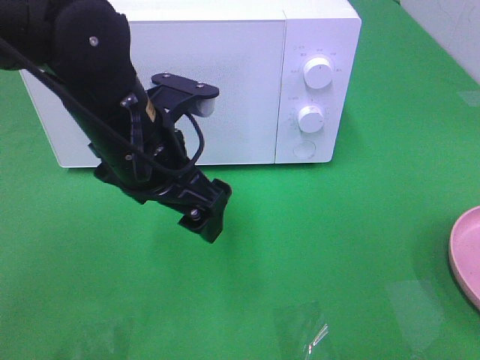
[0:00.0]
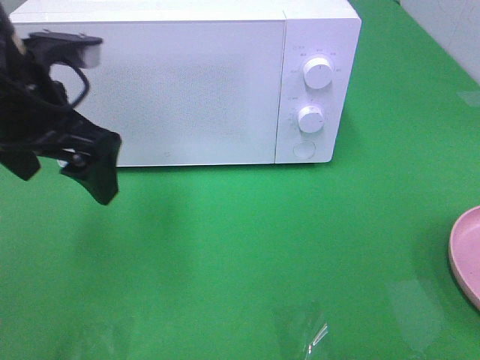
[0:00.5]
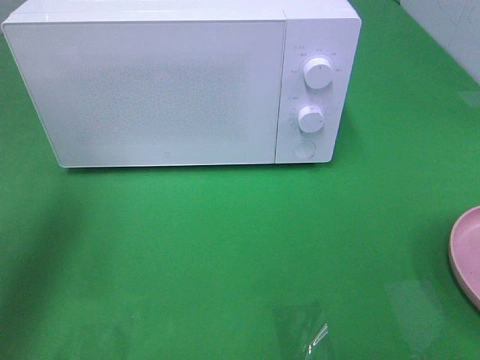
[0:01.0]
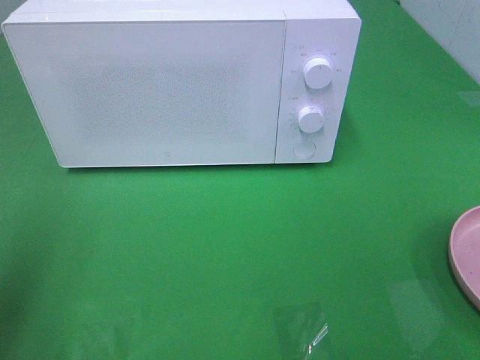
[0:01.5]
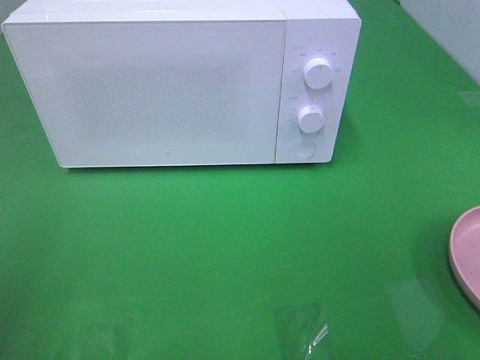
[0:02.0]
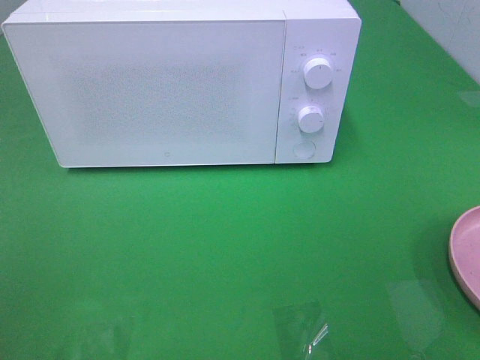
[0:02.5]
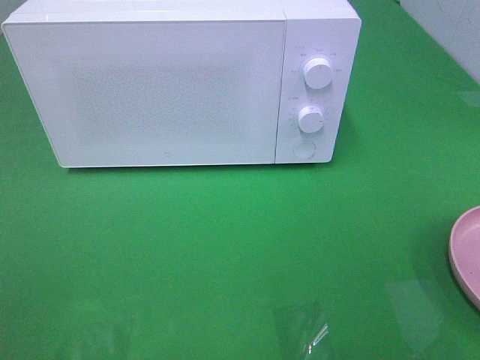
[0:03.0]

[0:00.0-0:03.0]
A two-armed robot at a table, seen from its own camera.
Task of the whole recording: Heat the burger.
0:00.0 to 0:01.5: The left gripper goes approximately 25 cm to the left and backward.
0:01.5 to 0:03.0: The left gripper heads backward, covering some 15 cm.

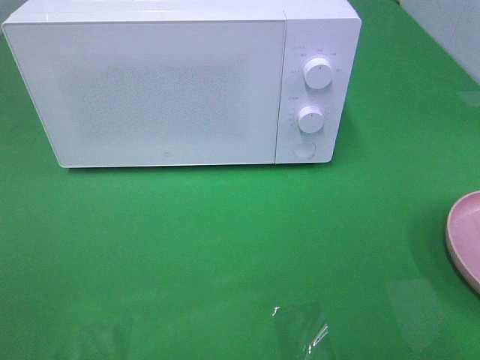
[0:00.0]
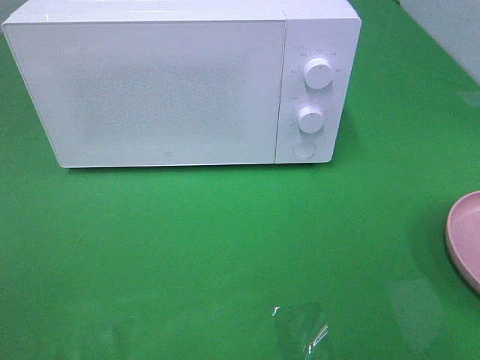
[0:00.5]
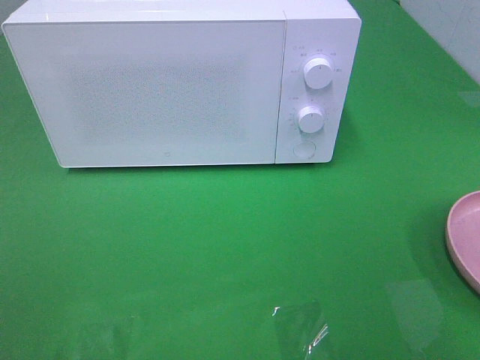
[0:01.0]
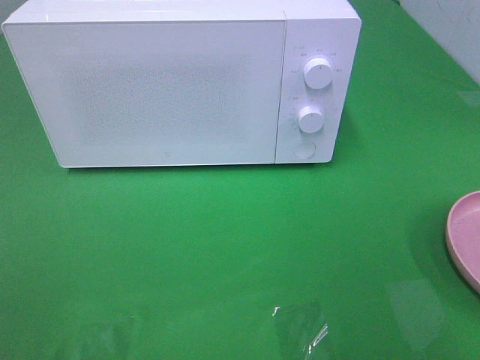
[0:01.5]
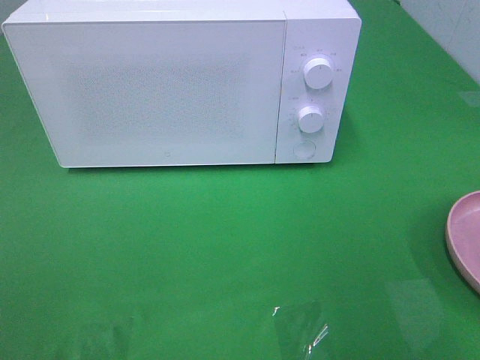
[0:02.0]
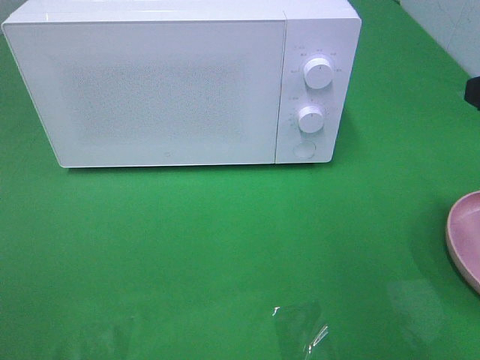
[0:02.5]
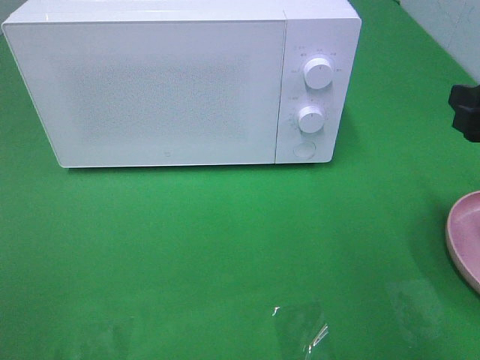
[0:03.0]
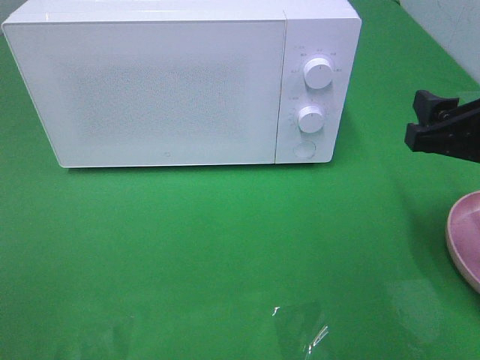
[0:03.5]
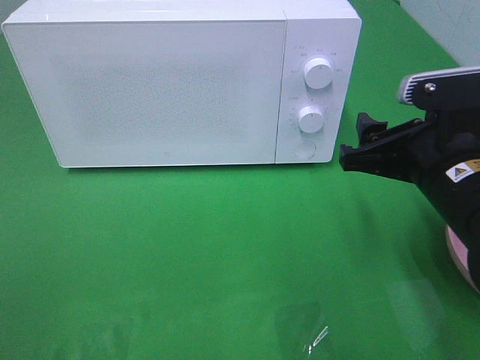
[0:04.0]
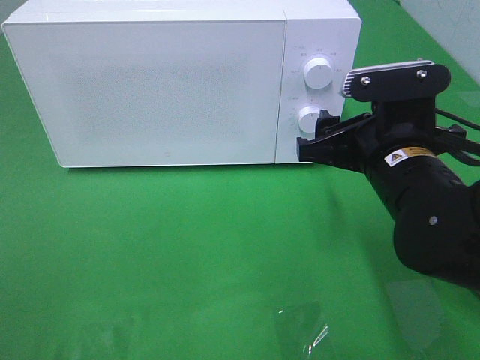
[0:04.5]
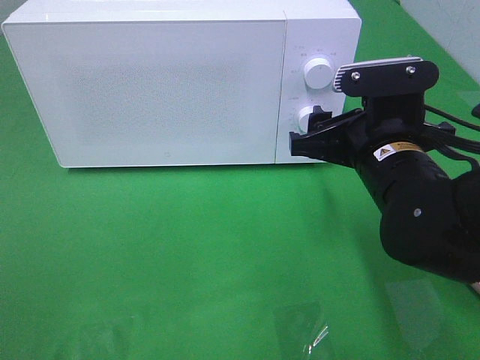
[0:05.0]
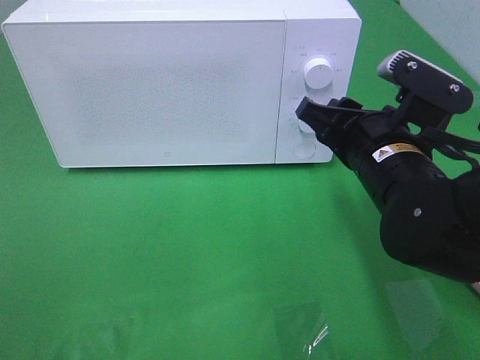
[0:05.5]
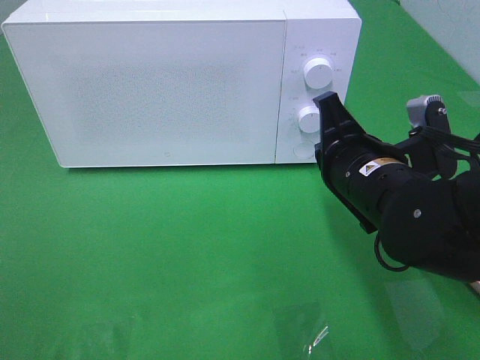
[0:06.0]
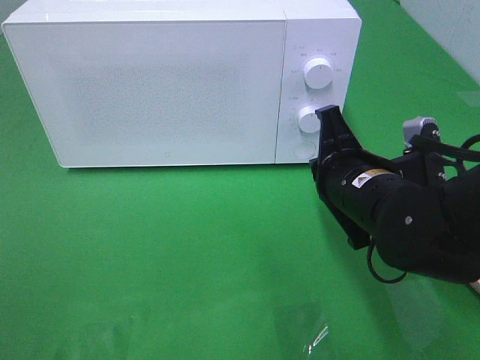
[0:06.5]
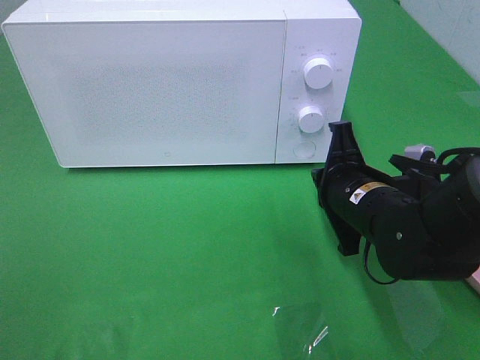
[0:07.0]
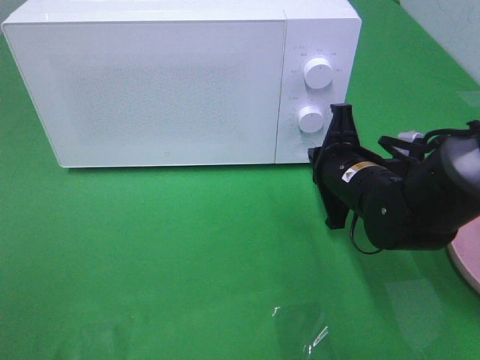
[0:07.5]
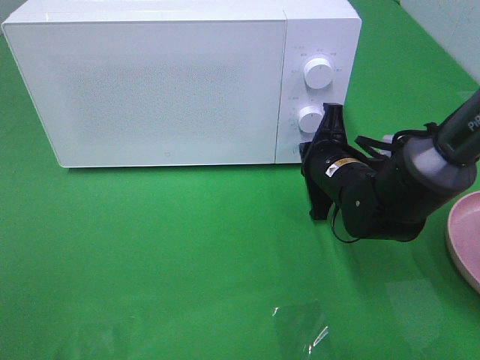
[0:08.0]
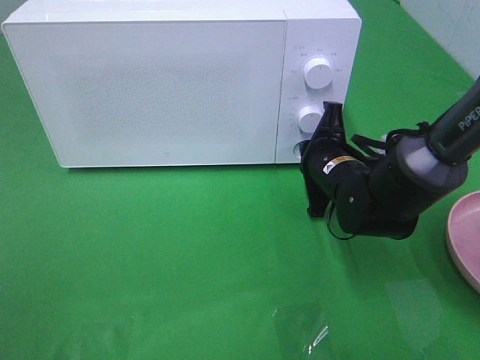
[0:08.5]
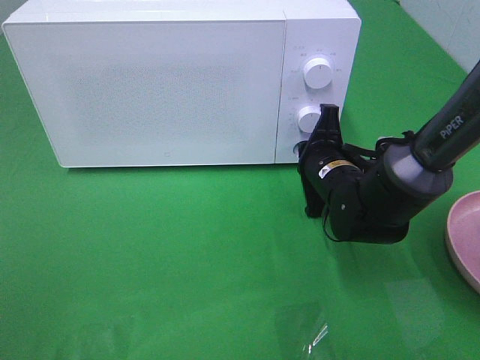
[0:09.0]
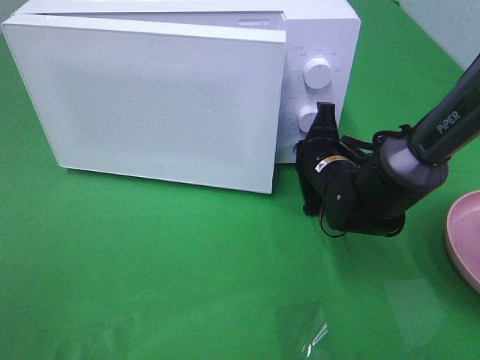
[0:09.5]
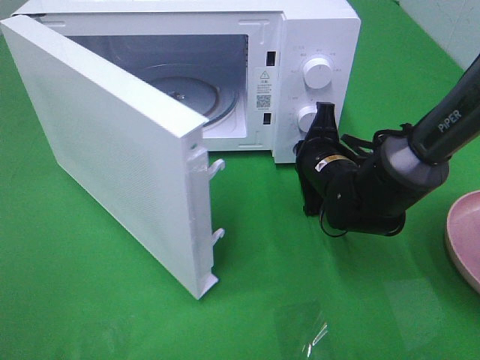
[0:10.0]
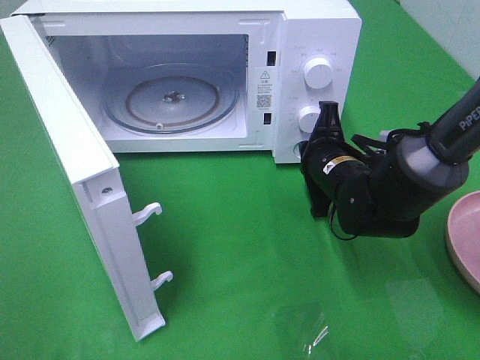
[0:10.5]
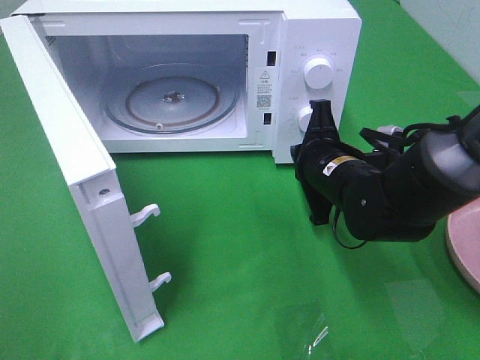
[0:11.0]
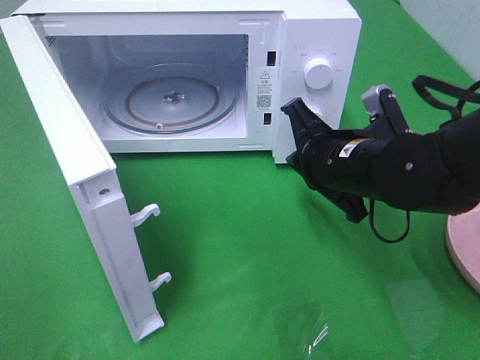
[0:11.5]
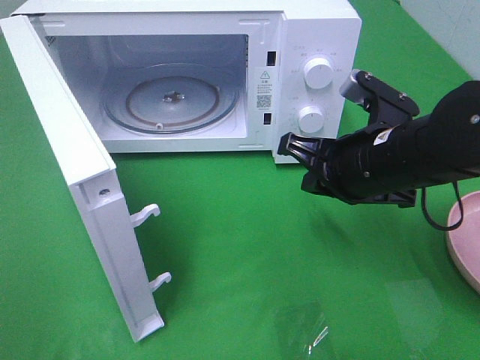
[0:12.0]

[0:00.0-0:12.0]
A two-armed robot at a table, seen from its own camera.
Task of the whole recording: Heat the burger.
Step, 0:00.0 to 0:10.5: Right hand: press the switch.
0:02.0 to 0:04.0: The right gripper is displaced downward, to the left and forward by about 20 cm.
0:04.0 to 0:06.0: The right gripper goes roughly 5 cm to the left, and closes its fingers.
0:06.0 to 0:08.0: The right gripper heads forward and downward, covering roughly 10 cm.
0:10.0 to 0:12.0: The right gripper is displaced upward and backward by some 15 cm.

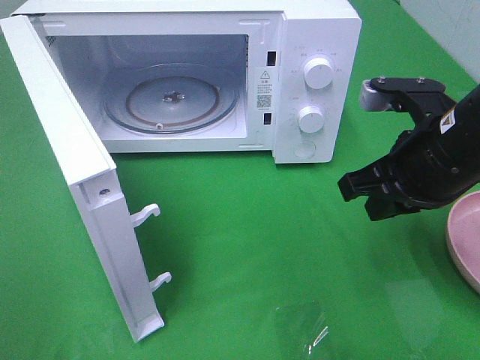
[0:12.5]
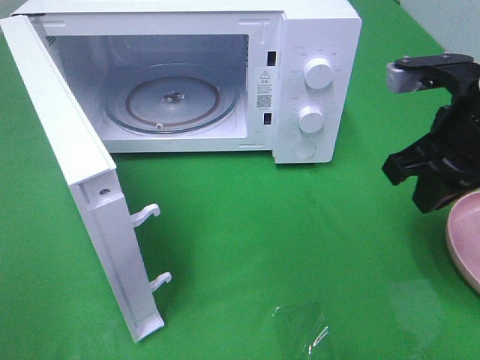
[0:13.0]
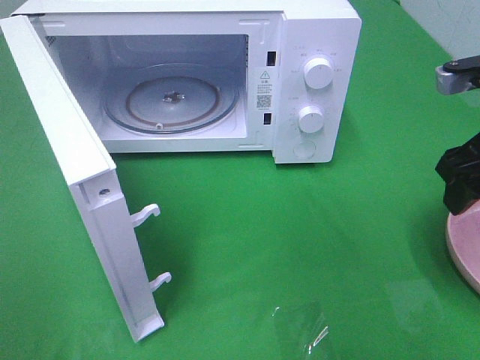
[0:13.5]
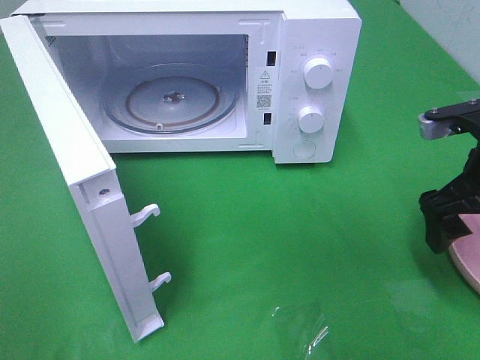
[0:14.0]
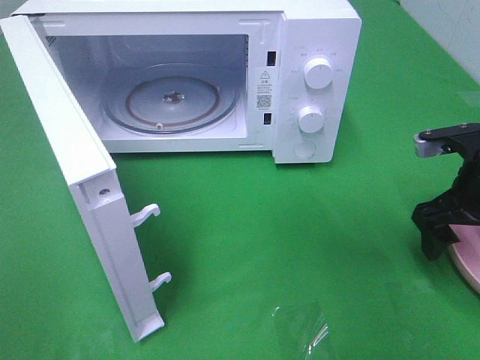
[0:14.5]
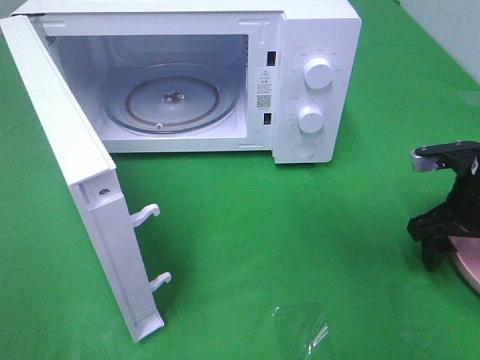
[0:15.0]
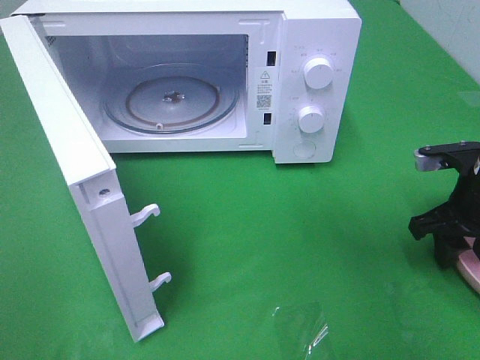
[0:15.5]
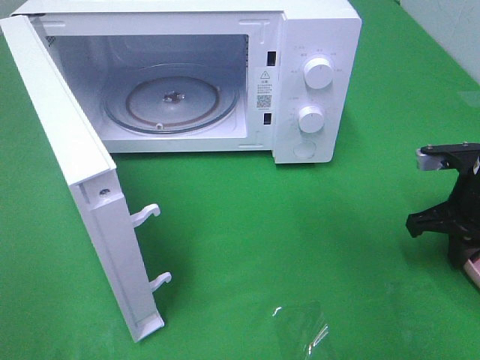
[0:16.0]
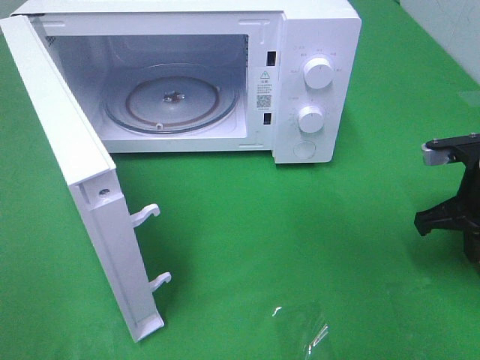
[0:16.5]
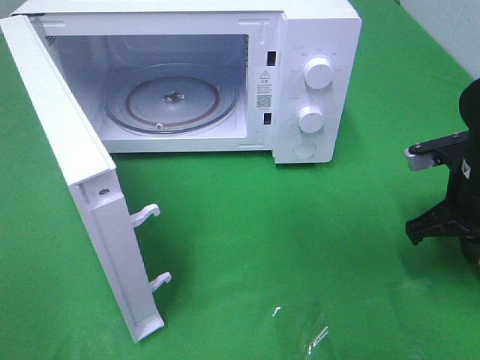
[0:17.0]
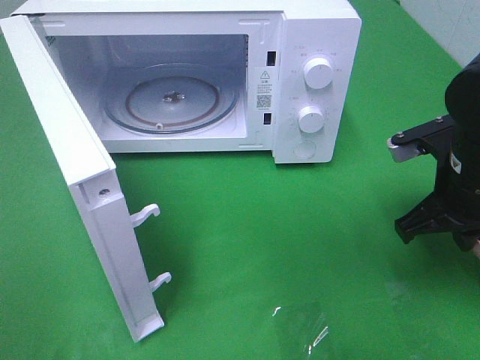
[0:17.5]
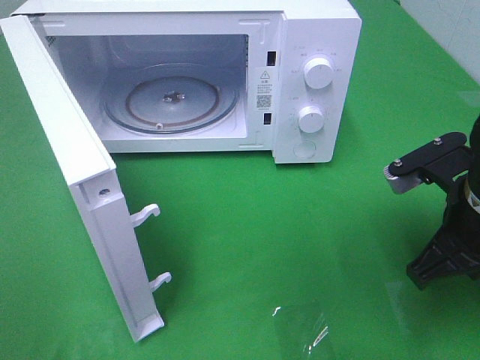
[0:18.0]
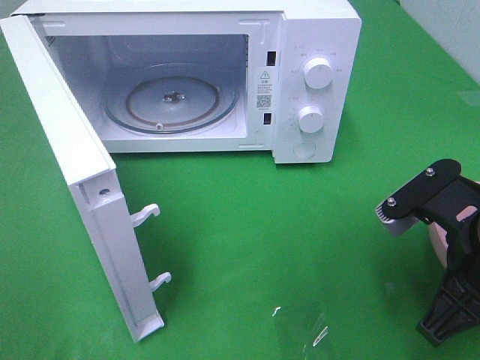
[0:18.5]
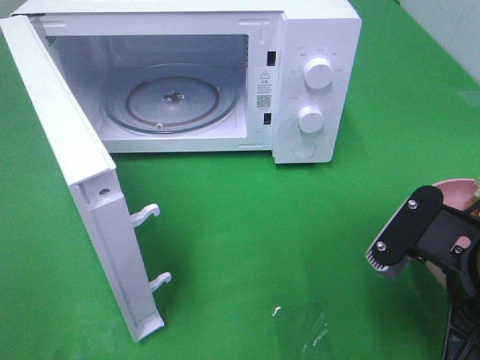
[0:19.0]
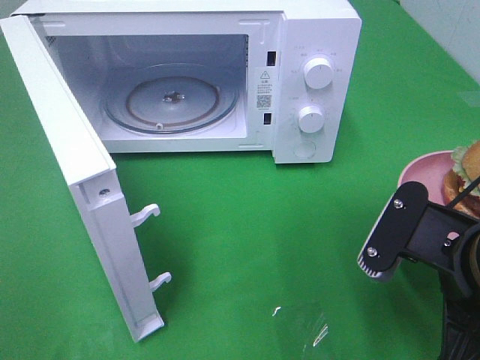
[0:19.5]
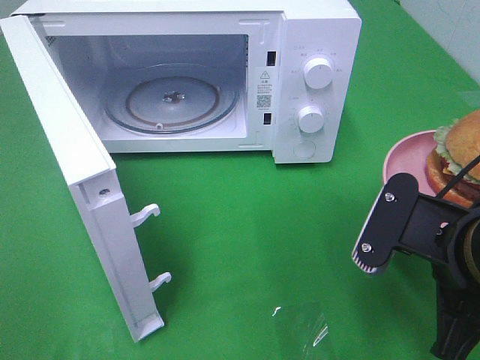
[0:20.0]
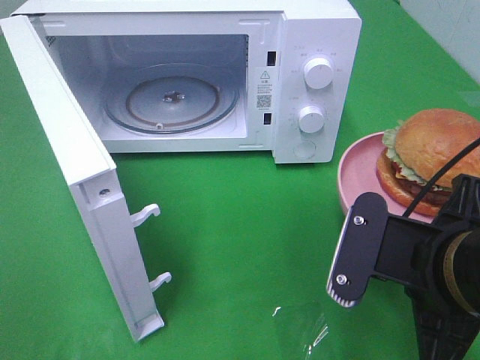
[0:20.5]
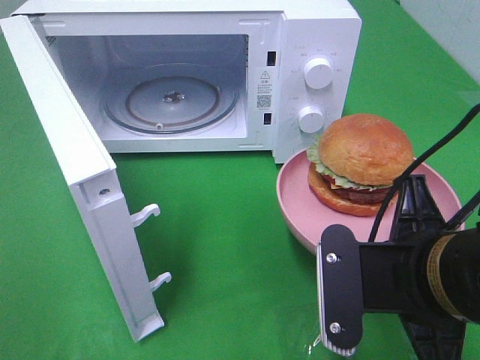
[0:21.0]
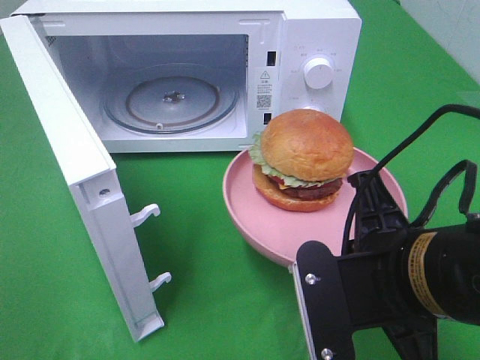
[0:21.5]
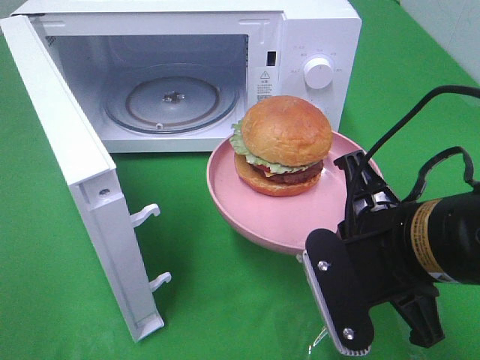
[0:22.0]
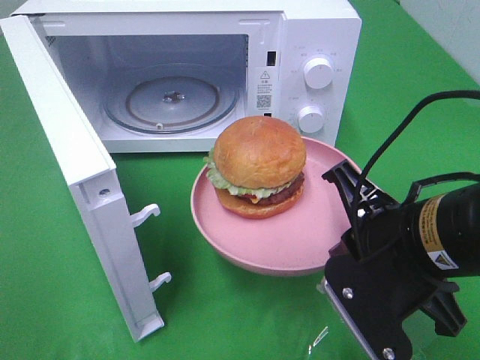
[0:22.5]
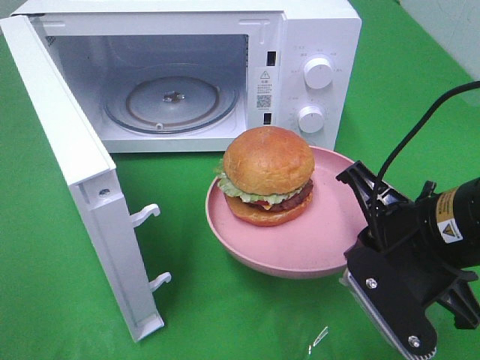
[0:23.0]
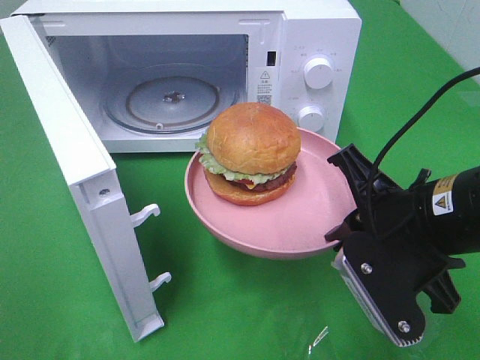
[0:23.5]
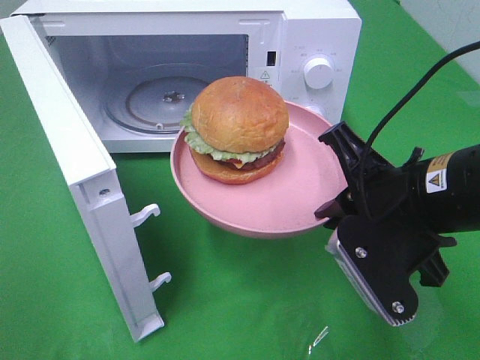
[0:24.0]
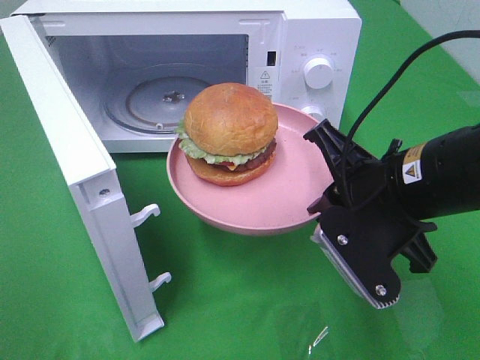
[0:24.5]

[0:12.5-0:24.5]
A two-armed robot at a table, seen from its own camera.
Task of the whole recording: Heat the burger.
Step, 0:12.5 to 0:15.5: Right hand: grab the plate with the hamburger.
0:12.5 to 0:14.5: The right gripper travels to the right and downward by approximately 10 cm, and opens up.
0:14.5 to 0:16.5: The right gripper closes its fingers.
0:16.5 to 0:18.5: The right gripper is displaced backward and to the left by some 15 cm.
0:18.5 to 0:20.5: The right gripper ends up roughly 5 cm from where it was.
